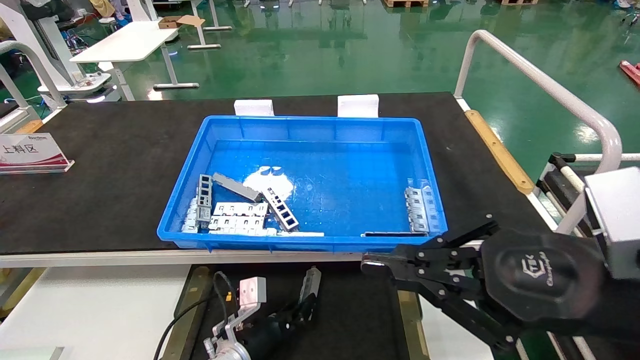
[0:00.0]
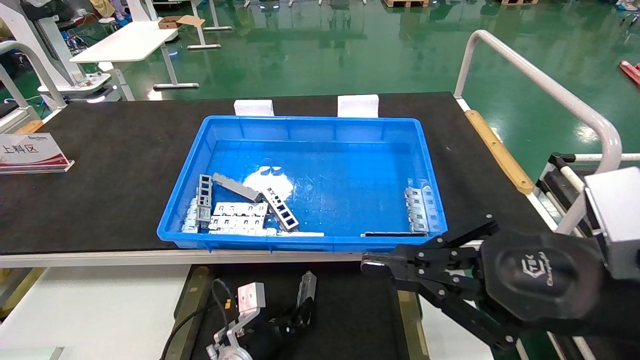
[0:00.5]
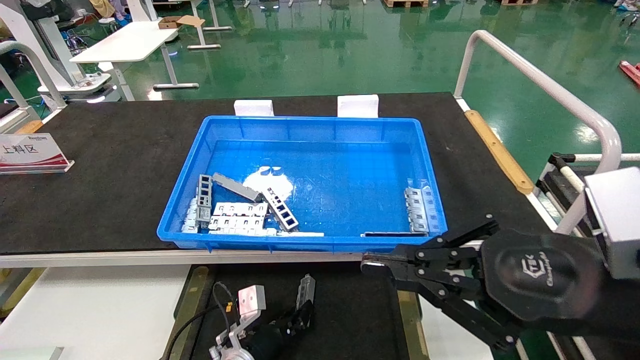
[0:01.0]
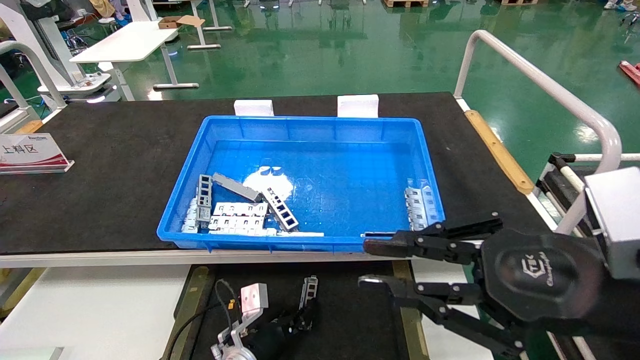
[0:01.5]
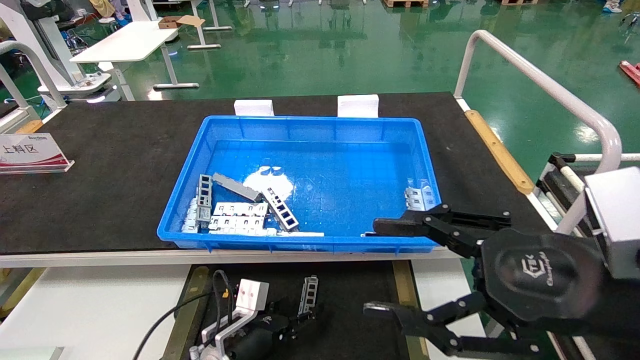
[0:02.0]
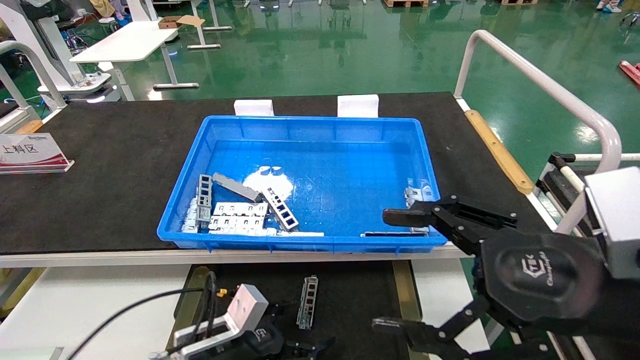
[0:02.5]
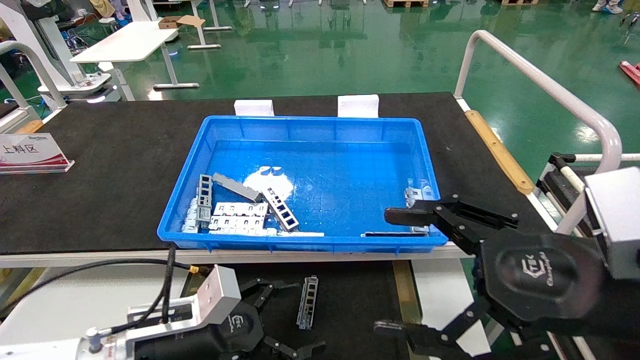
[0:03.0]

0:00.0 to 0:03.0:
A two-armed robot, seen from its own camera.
Task of the whole recording: Grasp the part with one hand and place it on the black container.
0:00.0 to 0:01.5: The grippers move only a little.
0:01.5 to 0:03.0: The right gripper opens; the left gripper is displaced upward, backward and to the left by roughly 20 cm, and opens.

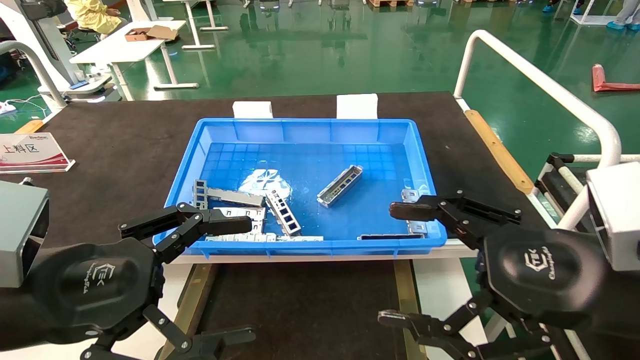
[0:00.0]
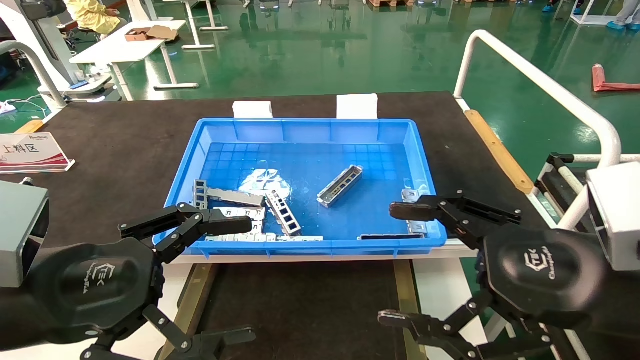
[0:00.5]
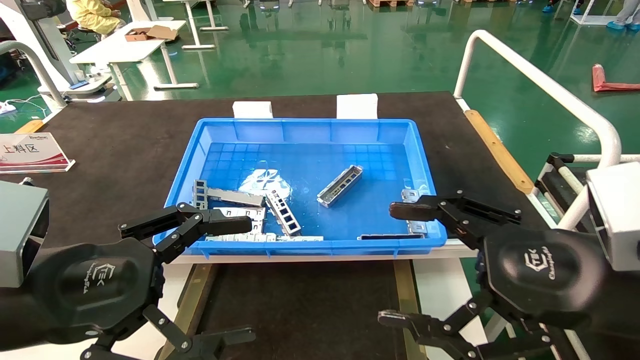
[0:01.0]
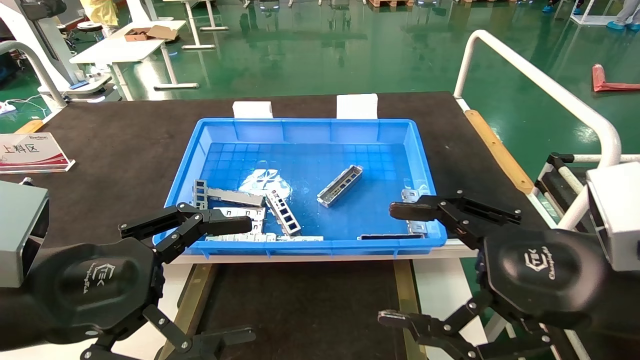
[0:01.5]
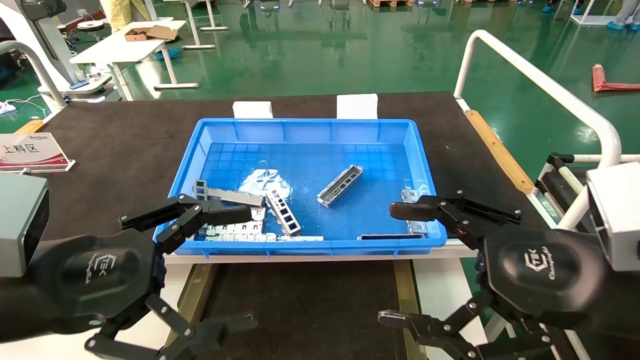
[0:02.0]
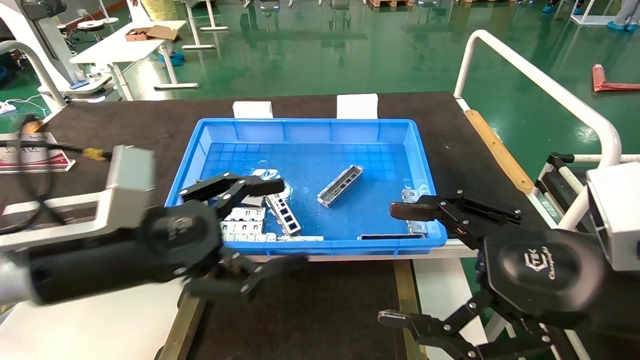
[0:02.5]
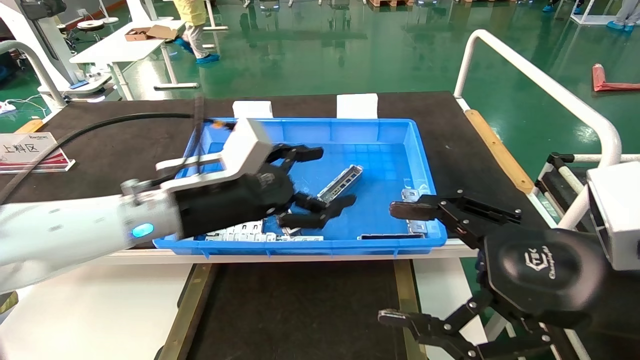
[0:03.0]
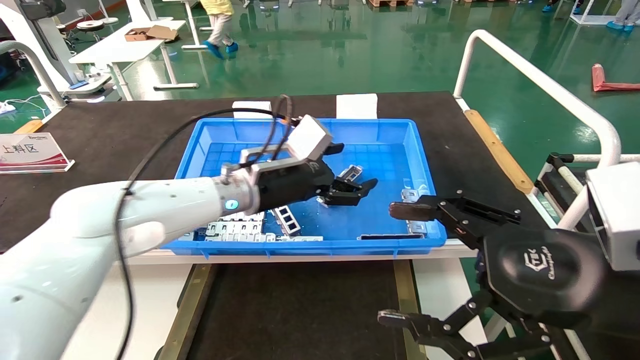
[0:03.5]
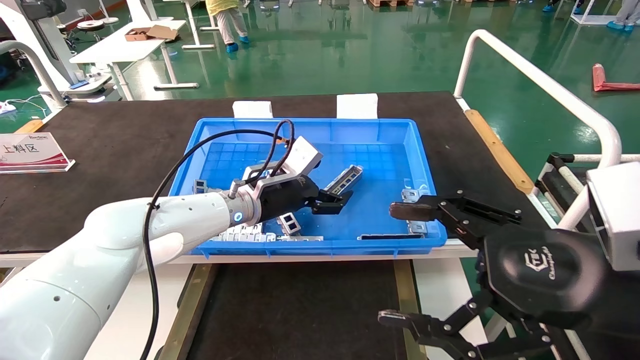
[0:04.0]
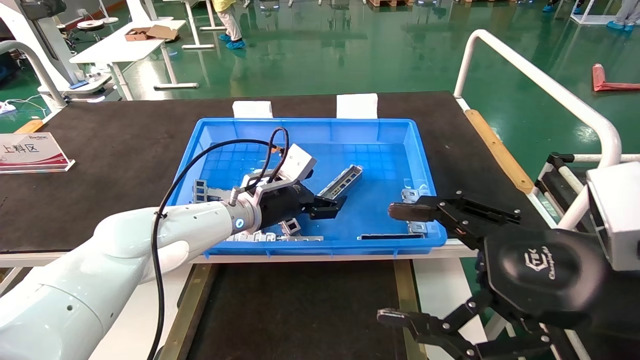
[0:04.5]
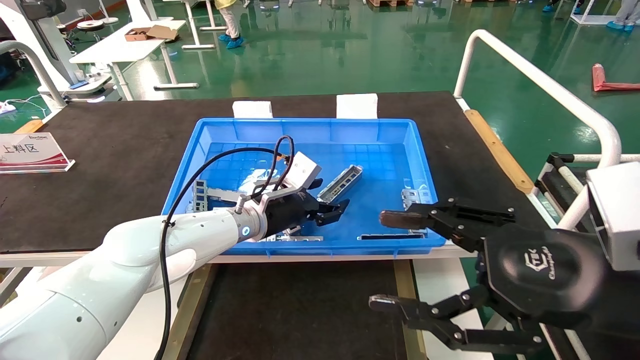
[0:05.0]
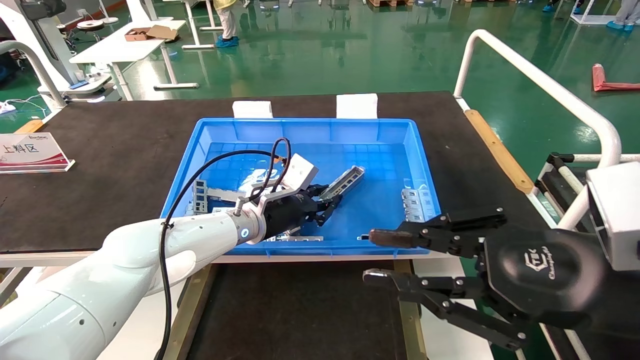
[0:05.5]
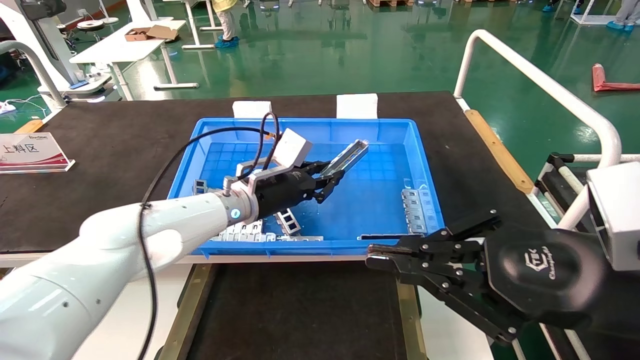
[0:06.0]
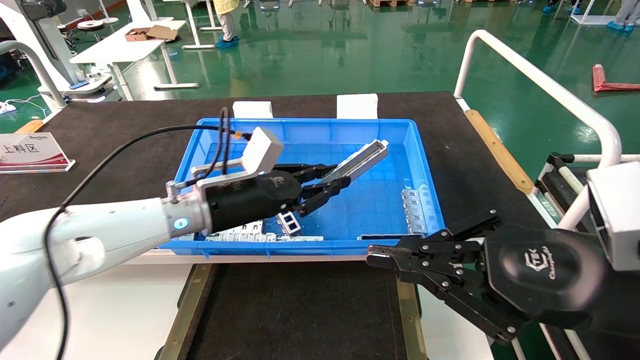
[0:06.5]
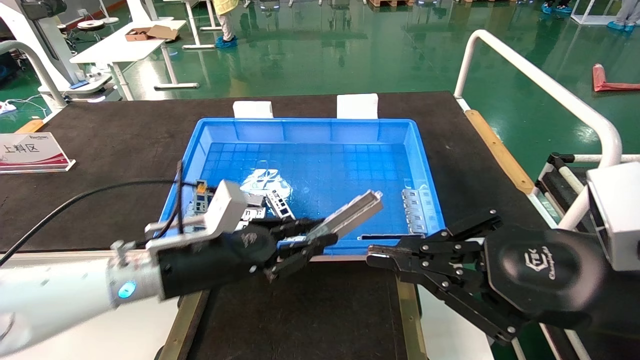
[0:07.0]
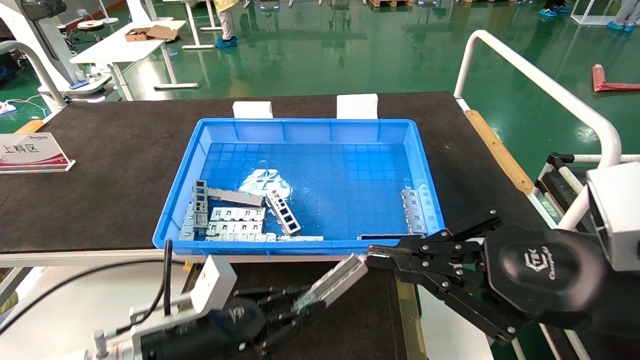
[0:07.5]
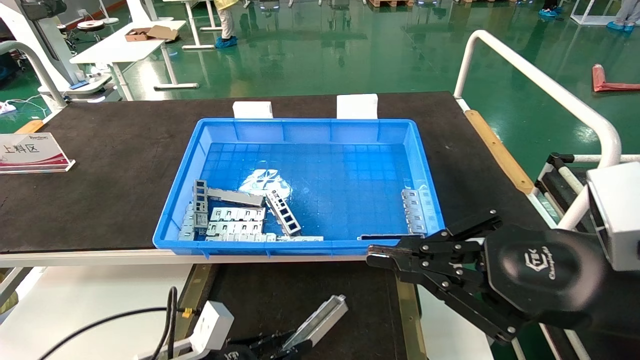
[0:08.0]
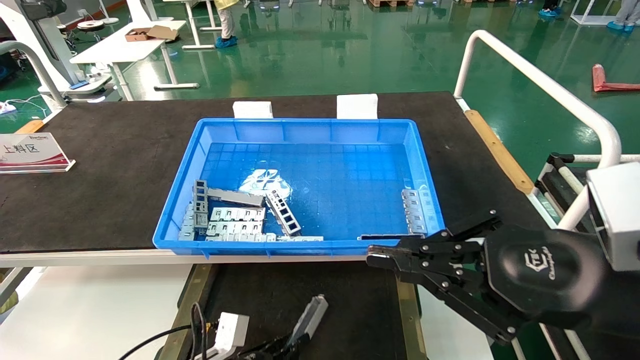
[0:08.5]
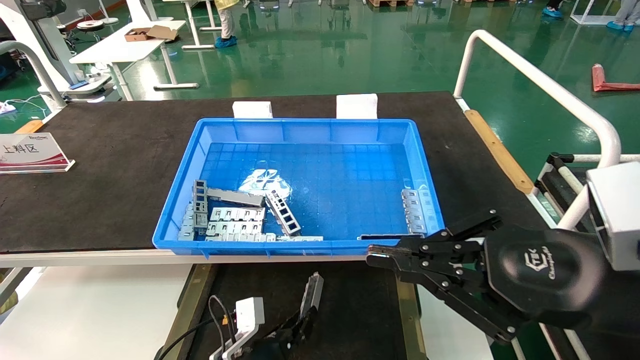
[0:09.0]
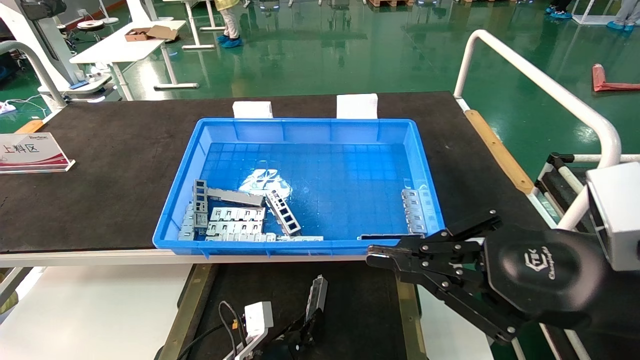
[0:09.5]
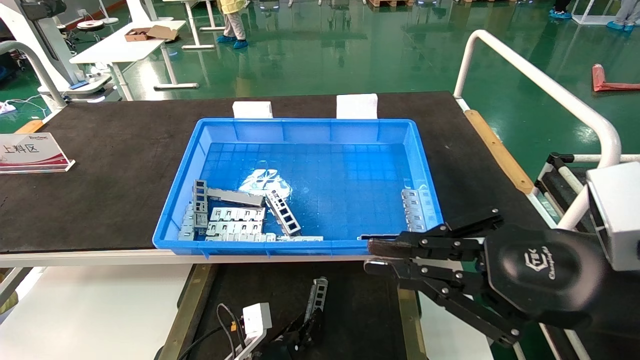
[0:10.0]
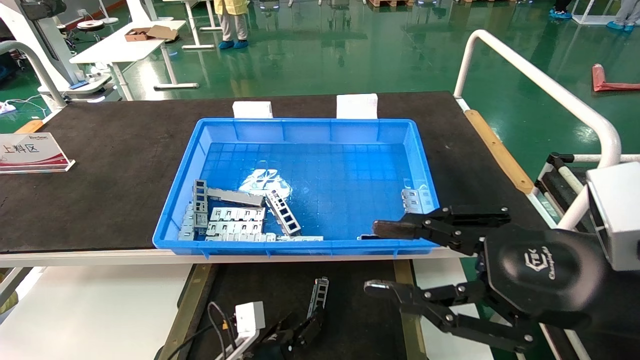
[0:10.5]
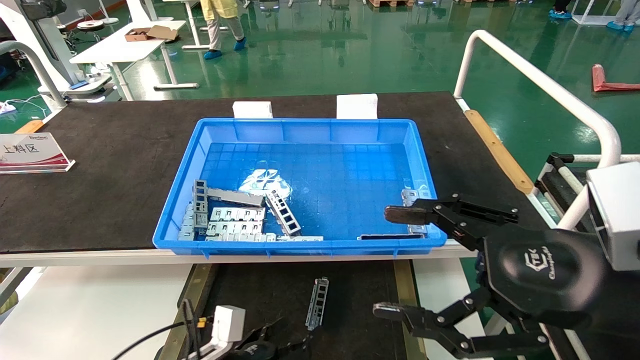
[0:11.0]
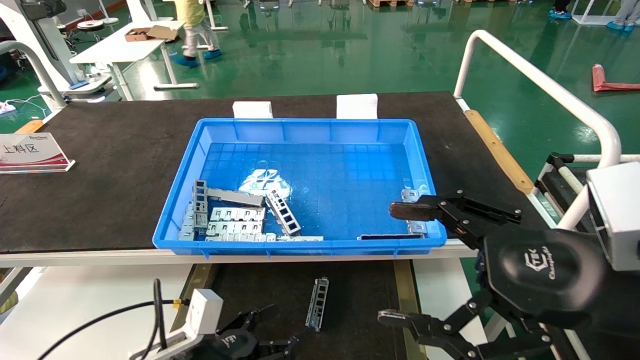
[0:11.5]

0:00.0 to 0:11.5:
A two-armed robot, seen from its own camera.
Task of the whole recording: Grasp the part with one hand and place it on the black container.
Step, 0:02.5 to 0:05.5: Pick up the front USB bracket from the feeding area.
Step, 0:06.0 to 0:10.5: Place the front USB bracket into the box.
0:00.0 to 0:02.0: Neither gripper changes place.
0:02.0 to 0:04.0: The left gripper shifts about 30 cm forward and to the right.
0:04.0 to 0:06.0: The right gripper closes up. Meanwhile the left gripper closes its fingers.
0:06.0 to 0:07.5: The left gripper is displaced backward, downward and to the left by roughly 25 cm.
0:07.5 to 0:09.5: The left gripper shifts about 20 cm downward, to the right and forward.
0:09.5 to 0:11.5: The left gripper shifts some 15 cm upward, to the left and backward, and opens its fingers. Meanwhile the right gripper opens up.
